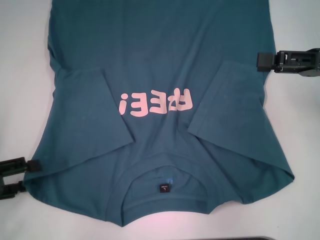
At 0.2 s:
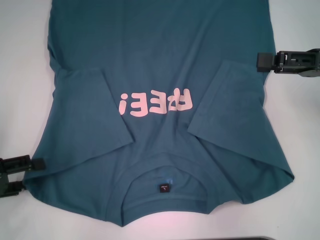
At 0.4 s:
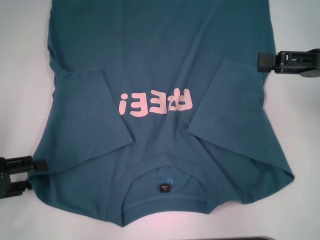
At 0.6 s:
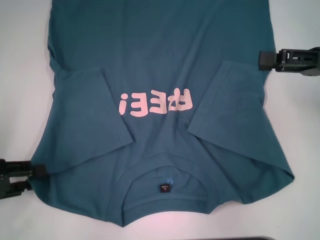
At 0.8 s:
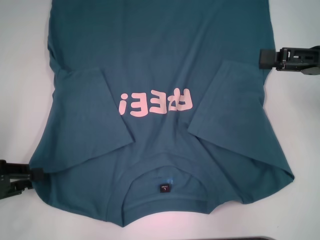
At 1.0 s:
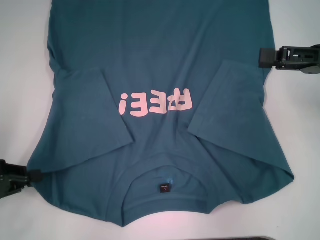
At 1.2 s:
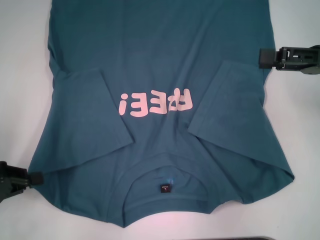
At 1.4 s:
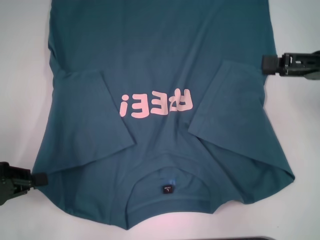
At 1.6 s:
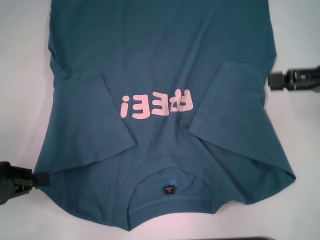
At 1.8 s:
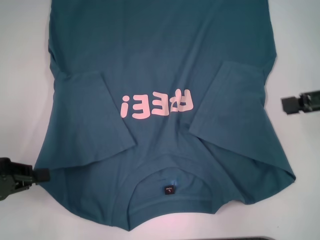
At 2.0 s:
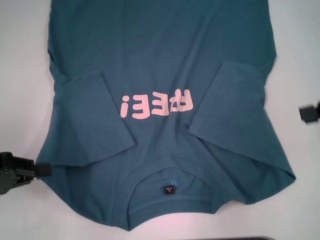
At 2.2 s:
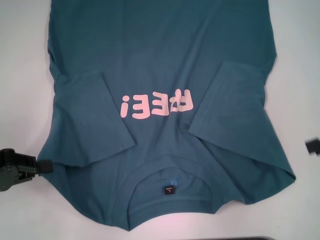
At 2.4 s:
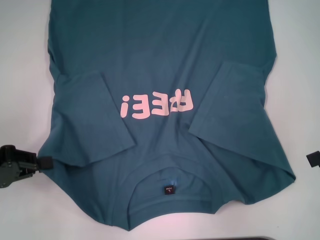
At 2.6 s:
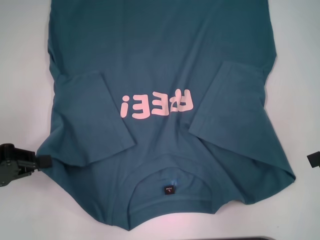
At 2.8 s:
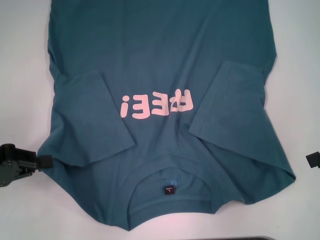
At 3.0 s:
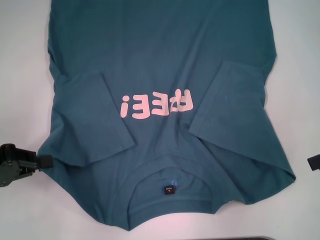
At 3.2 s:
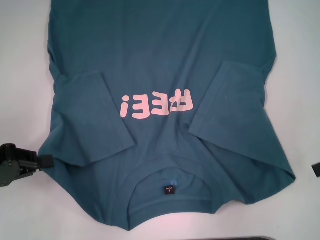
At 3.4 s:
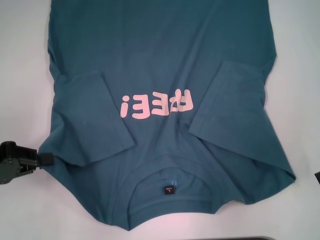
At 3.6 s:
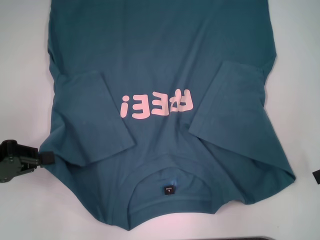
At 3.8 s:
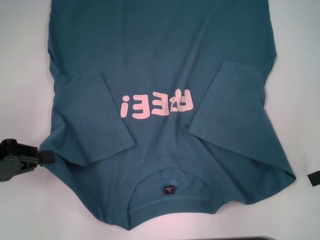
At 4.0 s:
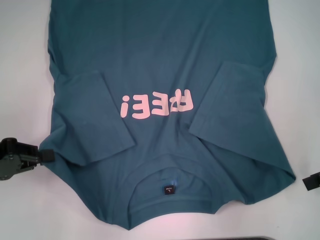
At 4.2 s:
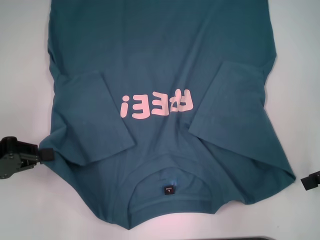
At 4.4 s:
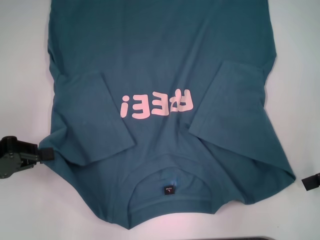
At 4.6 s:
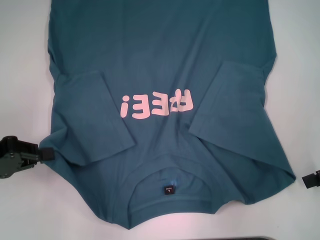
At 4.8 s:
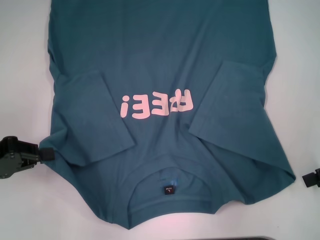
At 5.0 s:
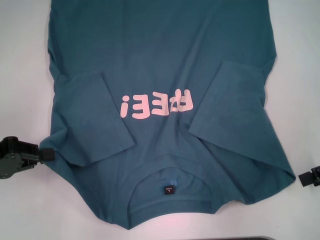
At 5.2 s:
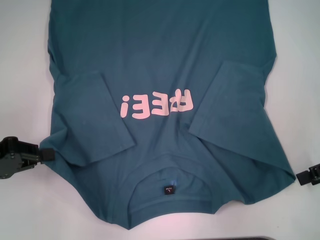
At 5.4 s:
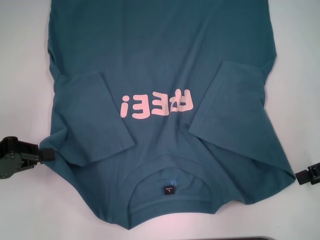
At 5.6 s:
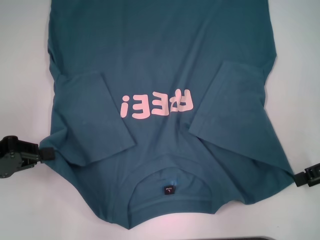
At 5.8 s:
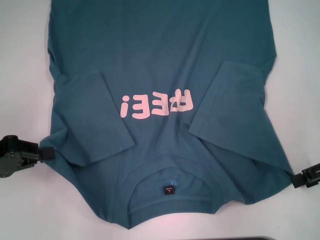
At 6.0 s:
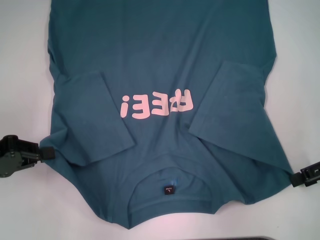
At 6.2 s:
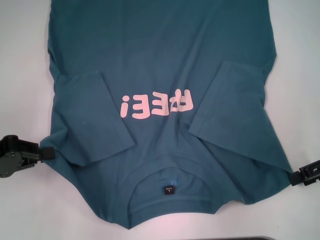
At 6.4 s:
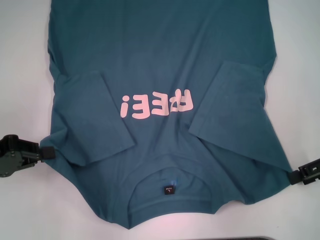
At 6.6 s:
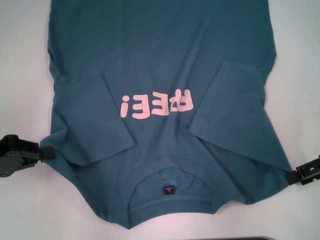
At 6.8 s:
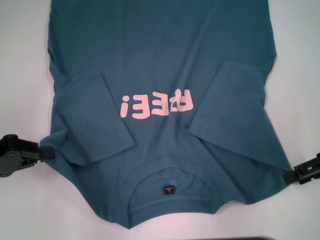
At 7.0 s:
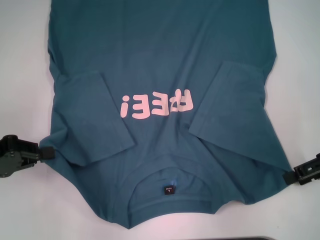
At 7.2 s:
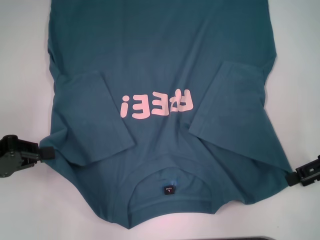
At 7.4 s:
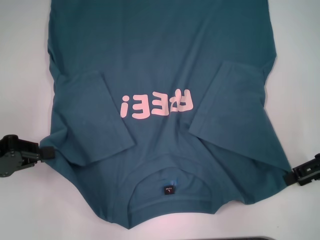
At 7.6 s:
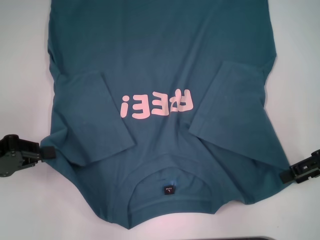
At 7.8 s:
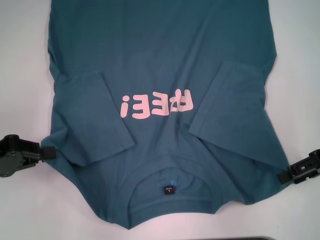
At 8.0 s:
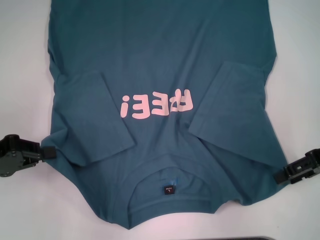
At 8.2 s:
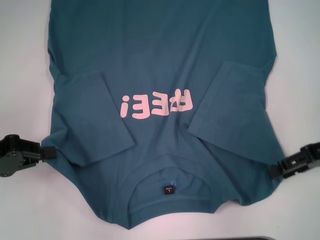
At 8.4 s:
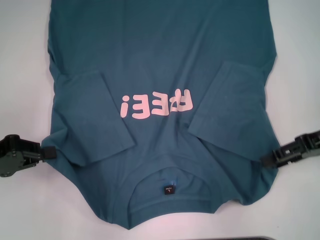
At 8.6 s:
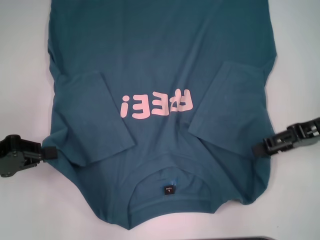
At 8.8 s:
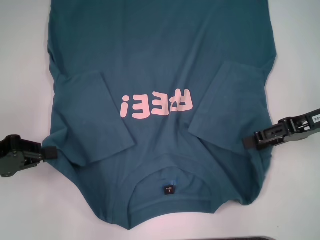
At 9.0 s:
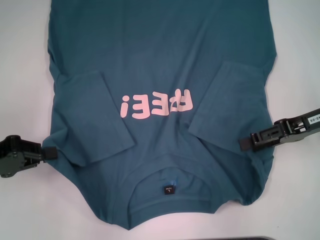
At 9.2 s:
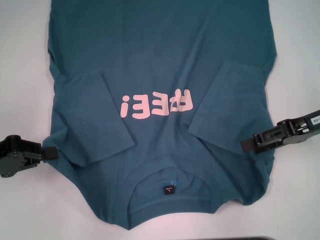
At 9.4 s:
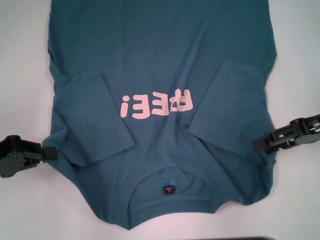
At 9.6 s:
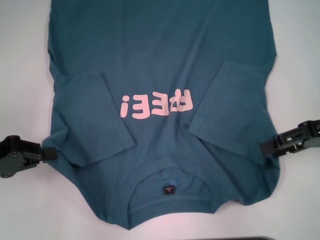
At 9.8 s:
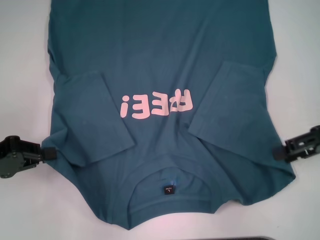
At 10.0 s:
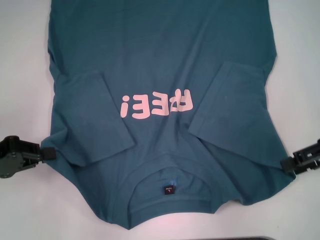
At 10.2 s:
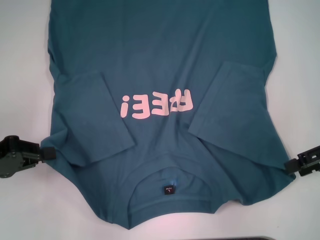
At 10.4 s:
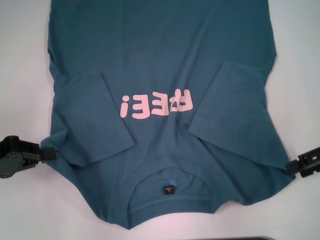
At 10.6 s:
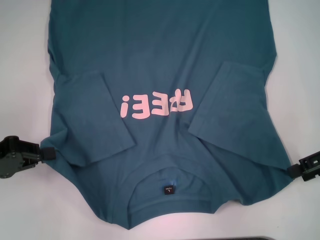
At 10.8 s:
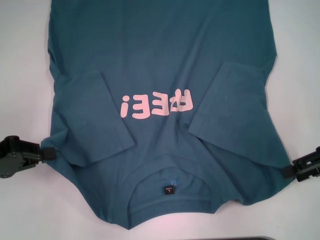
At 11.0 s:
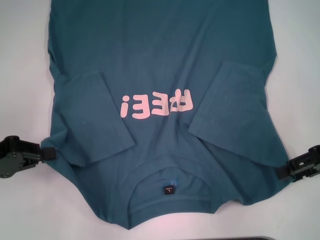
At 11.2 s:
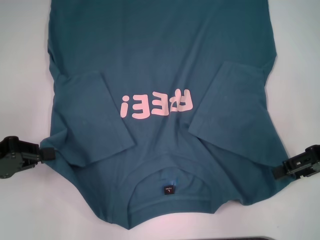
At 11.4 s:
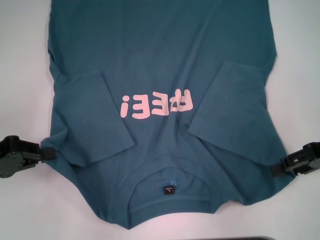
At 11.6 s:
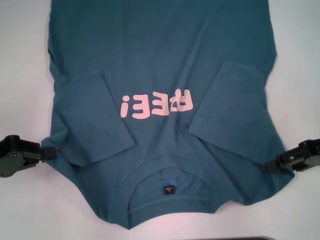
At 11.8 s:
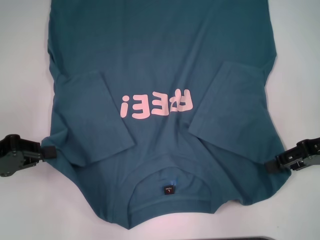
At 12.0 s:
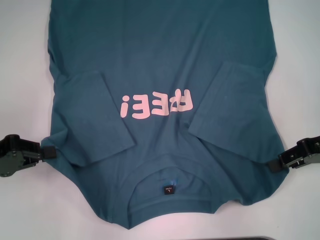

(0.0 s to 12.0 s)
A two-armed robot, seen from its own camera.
0.0 s - 1.6 s: The left gripper closes.
3.0 s - 7.6 s: The grippers move only a little.
7.6 s - 9.0 s: The grippers move only a little.
9.0 s - 10.4 s: The right gripper shifts about 5 cm to the right.
10.4 s - 12.0 s: The grippers stay close to where they were, moving slightly.

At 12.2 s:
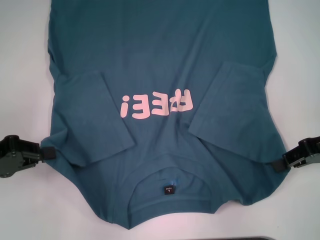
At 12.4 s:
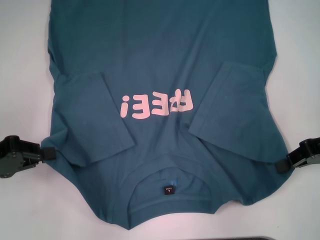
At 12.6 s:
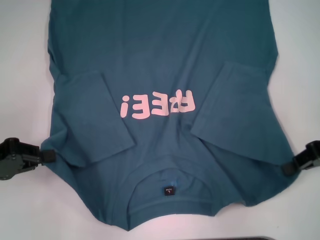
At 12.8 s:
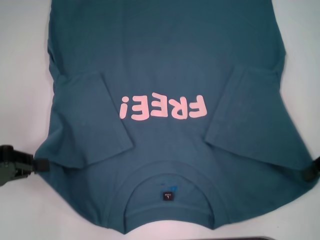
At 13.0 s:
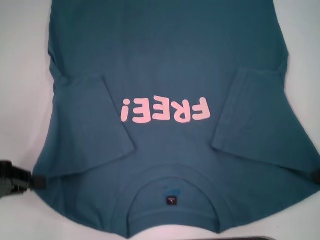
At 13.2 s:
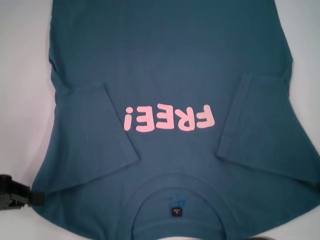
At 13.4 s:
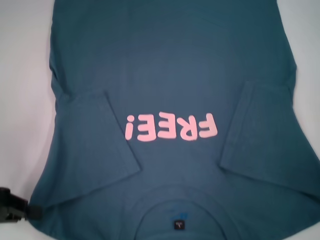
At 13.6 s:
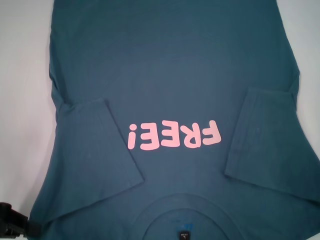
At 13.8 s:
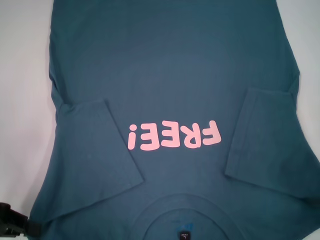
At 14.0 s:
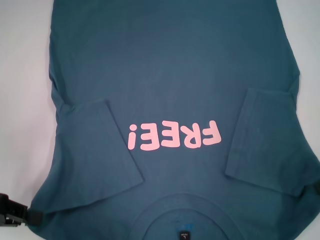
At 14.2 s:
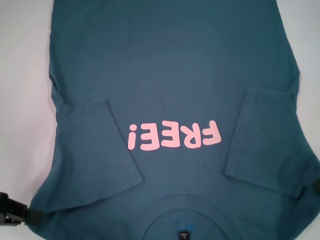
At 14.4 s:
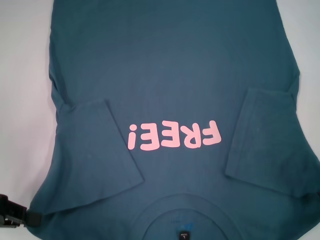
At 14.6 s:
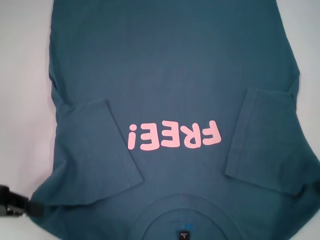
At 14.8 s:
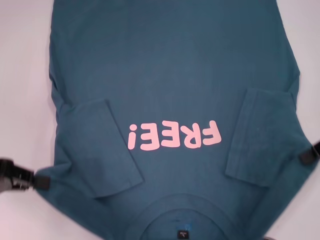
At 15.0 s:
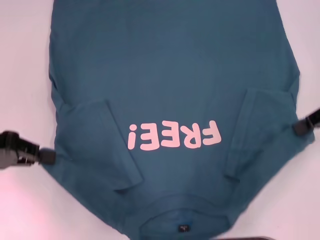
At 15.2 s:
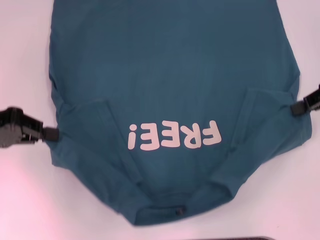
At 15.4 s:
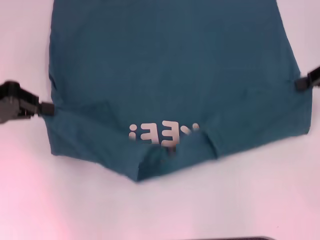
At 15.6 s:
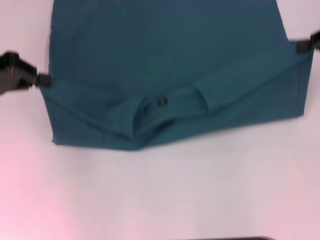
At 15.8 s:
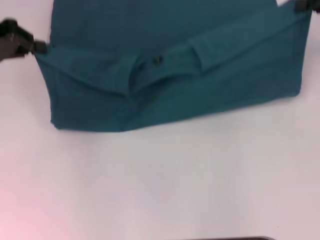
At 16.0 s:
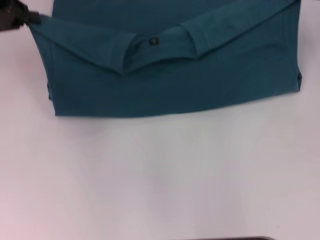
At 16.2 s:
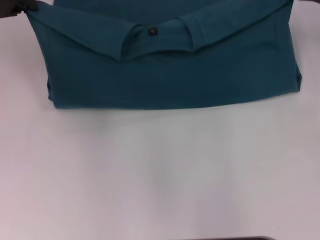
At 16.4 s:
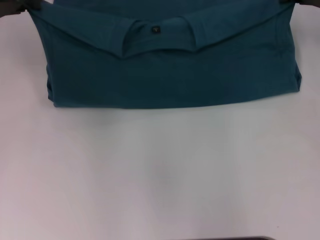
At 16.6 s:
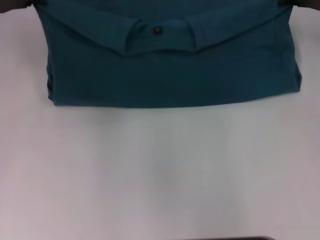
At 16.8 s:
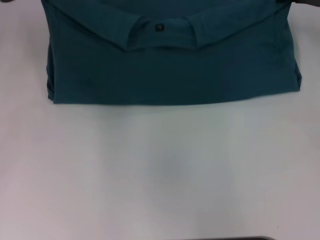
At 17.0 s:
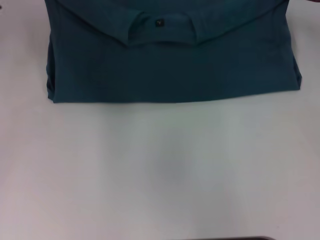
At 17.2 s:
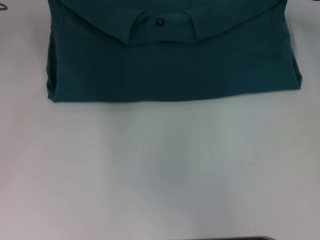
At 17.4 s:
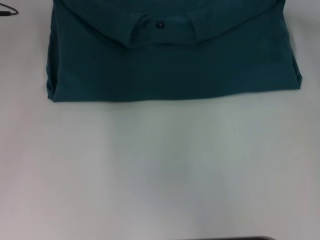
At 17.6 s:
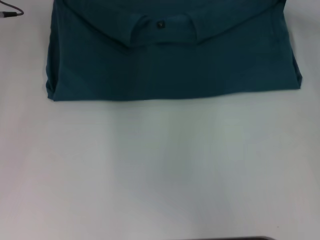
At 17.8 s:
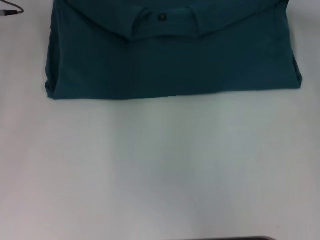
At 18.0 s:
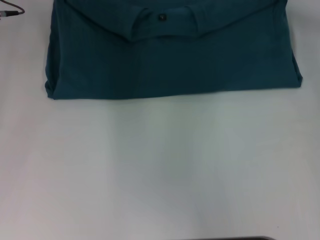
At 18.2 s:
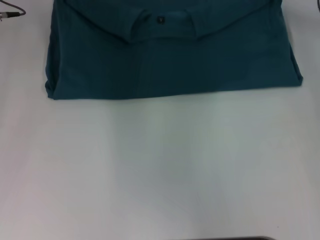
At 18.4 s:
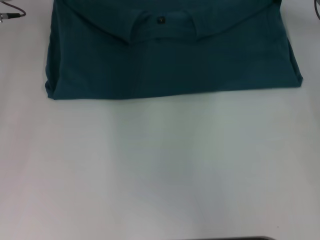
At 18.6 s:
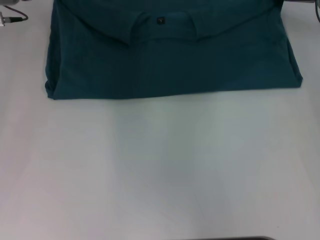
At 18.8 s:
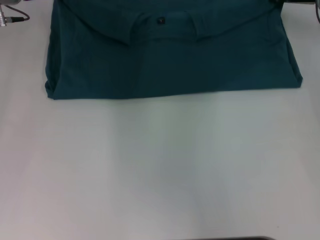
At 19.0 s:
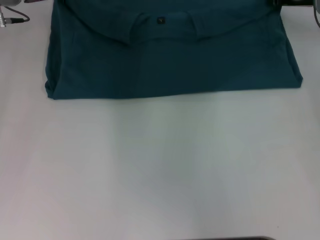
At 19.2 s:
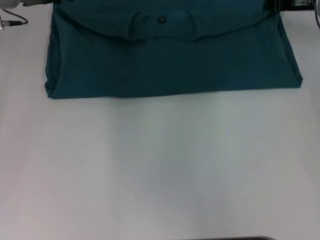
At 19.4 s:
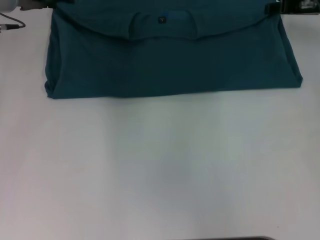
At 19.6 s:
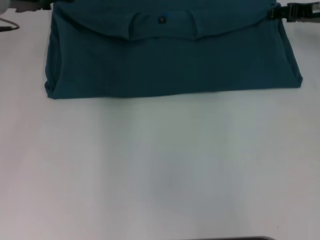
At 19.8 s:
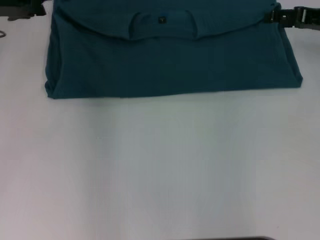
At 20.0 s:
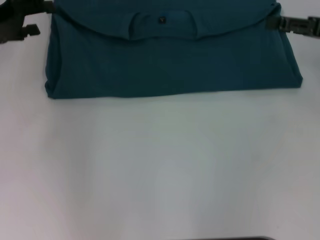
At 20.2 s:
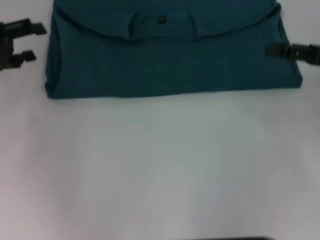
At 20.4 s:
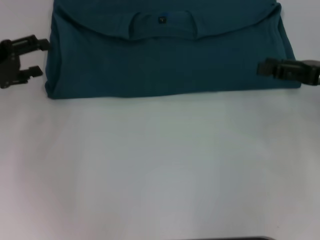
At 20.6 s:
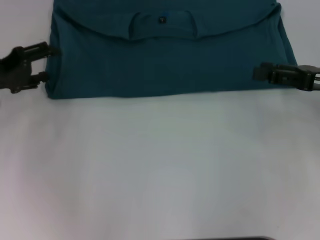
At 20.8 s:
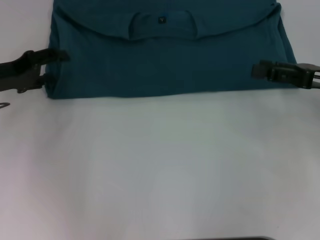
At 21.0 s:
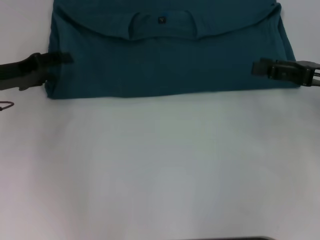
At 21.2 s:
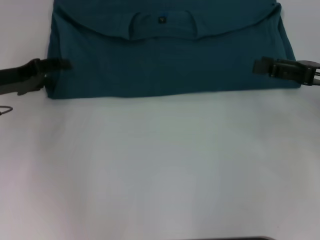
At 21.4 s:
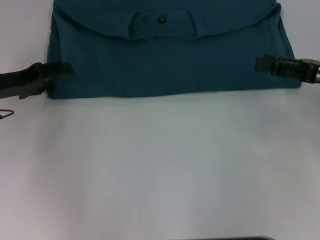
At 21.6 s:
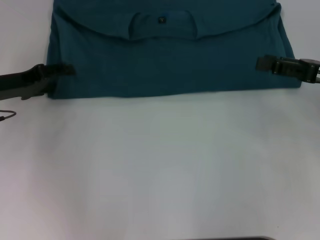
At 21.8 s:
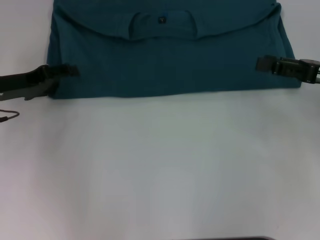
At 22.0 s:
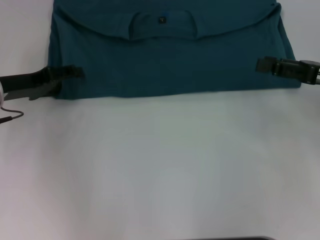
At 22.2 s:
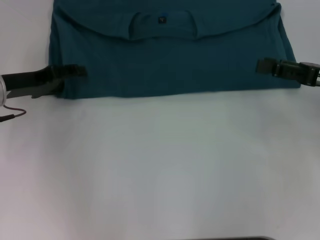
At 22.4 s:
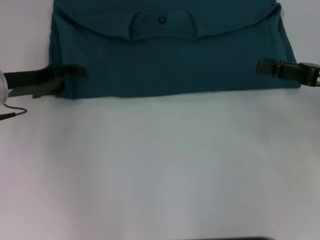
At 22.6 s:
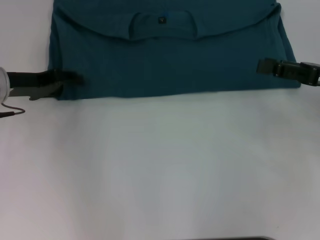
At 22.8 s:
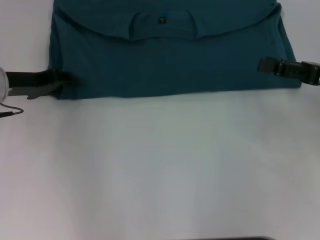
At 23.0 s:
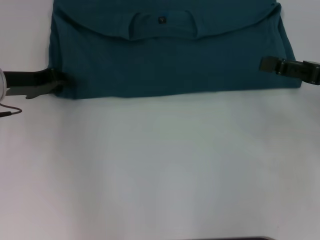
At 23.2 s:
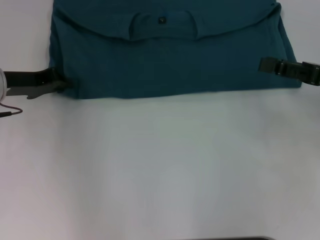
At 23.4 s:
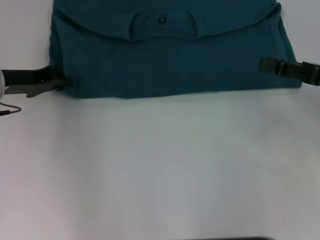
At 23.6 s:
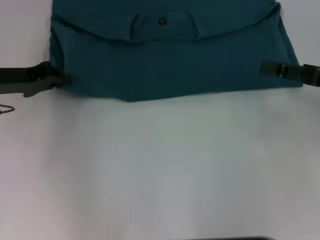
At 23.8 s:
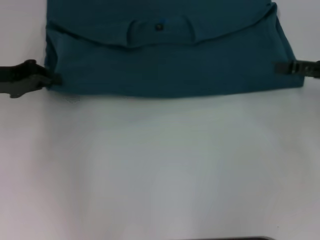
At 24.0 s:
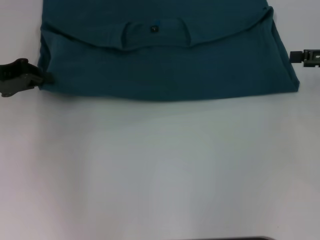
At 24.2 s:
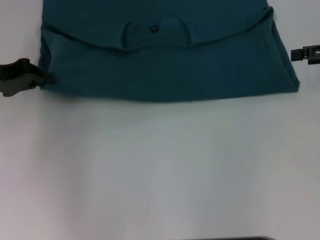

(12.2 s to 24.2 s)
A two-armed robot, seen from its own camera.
Step, 12.4 s - 19.0 s: Fold the clothes to the left.
Step, 12.4 s - 19.0 s: Fold the clothes to the right.
13.8 s - 15.2 s: The left gripper goes about 10 cm forward and upward, while the right gripper heads forward, covering roughly 5 cm.
15.2 s - 16.6 s: The right gripper shifts roughly 10 cm forward. The left gripper travels forward by about 15 cm.
16.6 s - 18.2 s: The right gripper moves roughly 5 cm. Meanwhile the left gripper moves to the right, about 5 cm.
18.2 s - 19.8 s: The left gripper moves about 5 cm, and opens up, while the right gripper heads backward, covering approximately 5 cm, and opens its fingers.
19.8 s - 21.2 s: The right gripper moves backward, approximately 10 cm, while the left gripper goes approximately 10 cm downward and backward.
21.2 s - 22.6 s: The grippers move only a little.
22.6 s - 24.2 s: The right gripper is displaced forward by about 5 cm, while the left gripper moves about 5 cm, and closes up.
